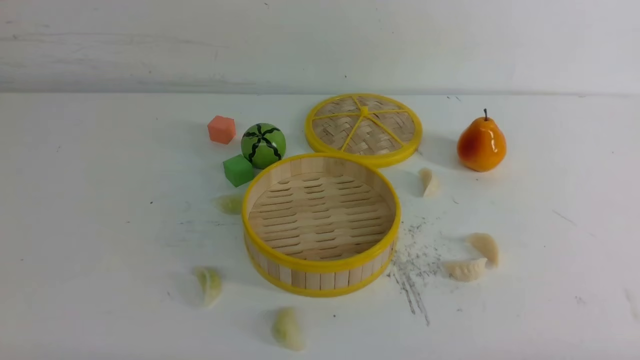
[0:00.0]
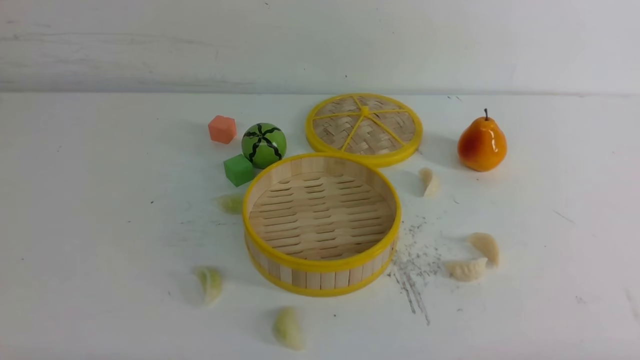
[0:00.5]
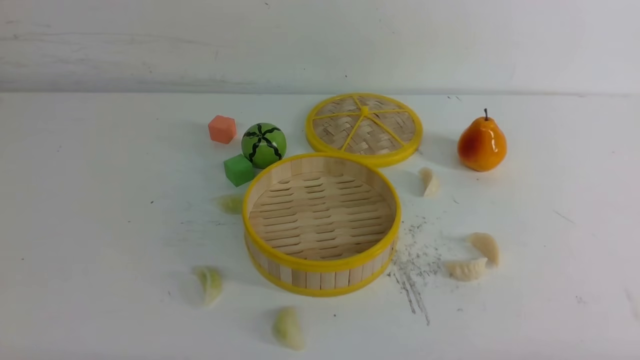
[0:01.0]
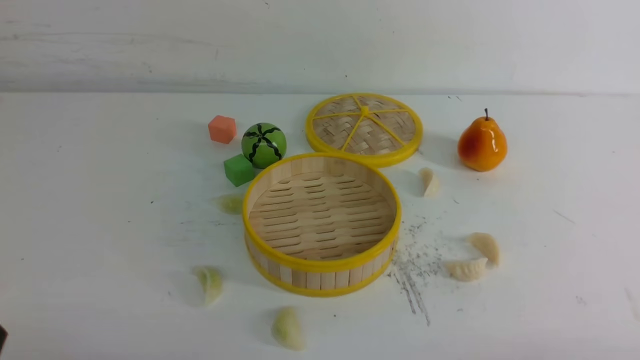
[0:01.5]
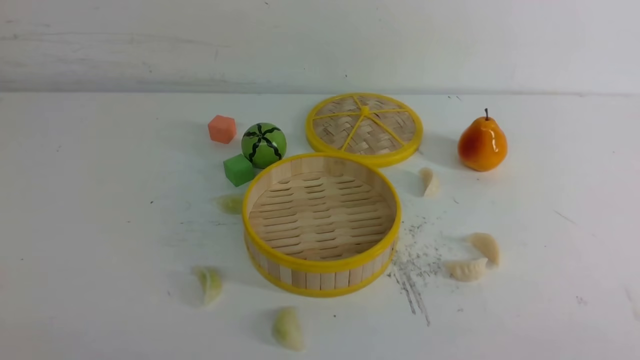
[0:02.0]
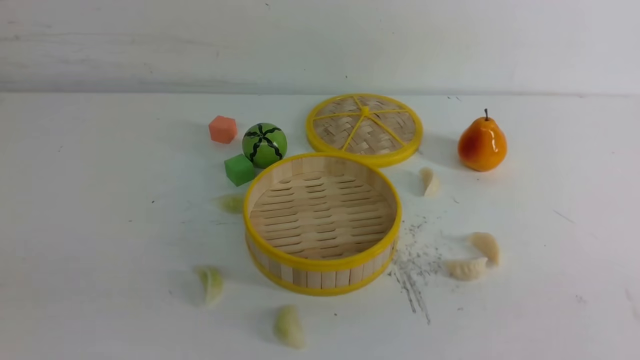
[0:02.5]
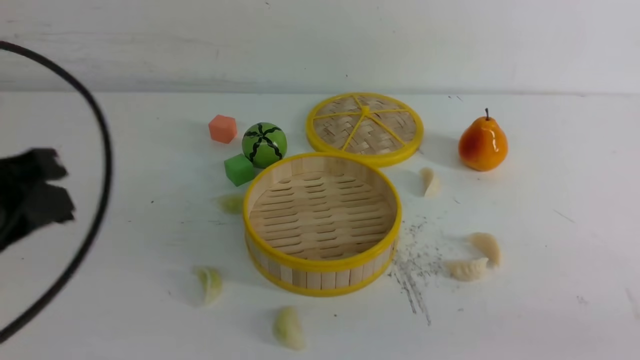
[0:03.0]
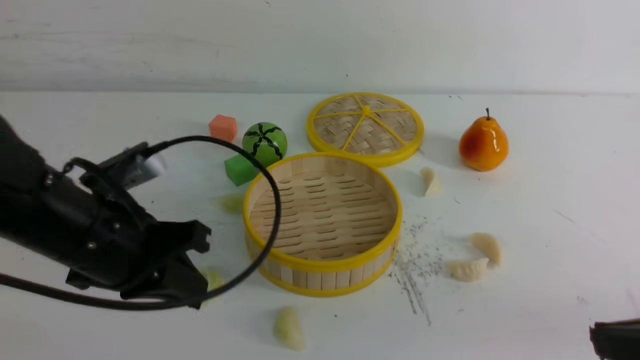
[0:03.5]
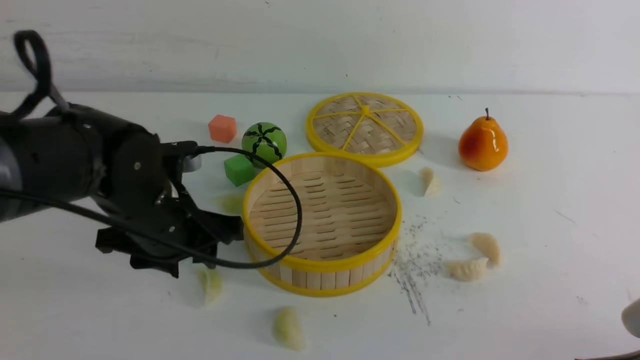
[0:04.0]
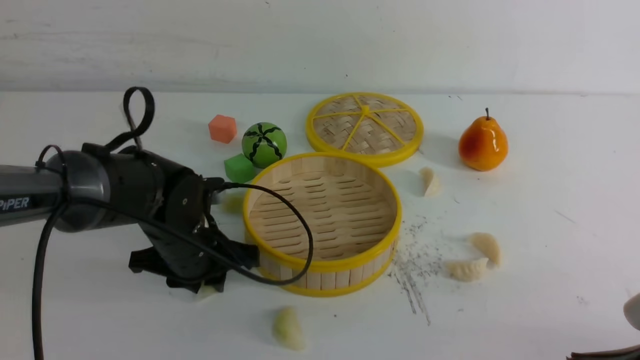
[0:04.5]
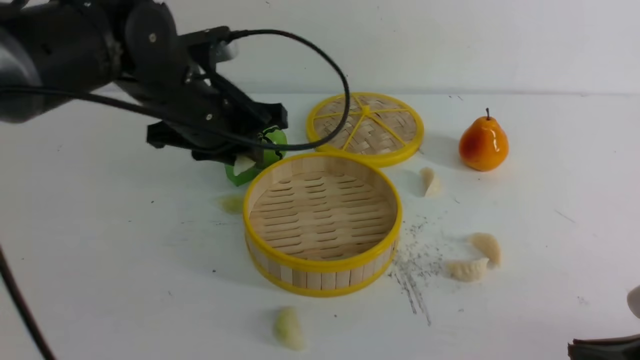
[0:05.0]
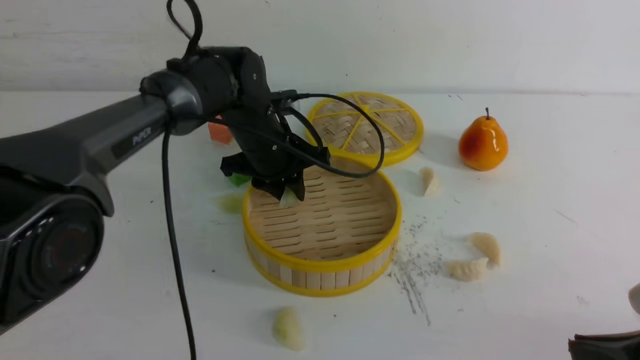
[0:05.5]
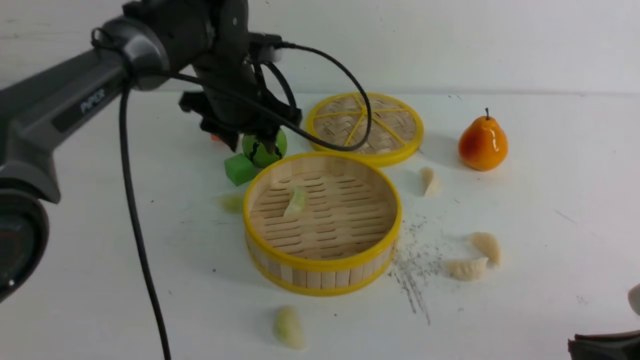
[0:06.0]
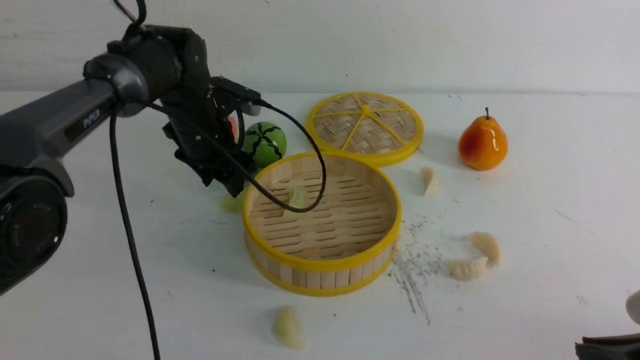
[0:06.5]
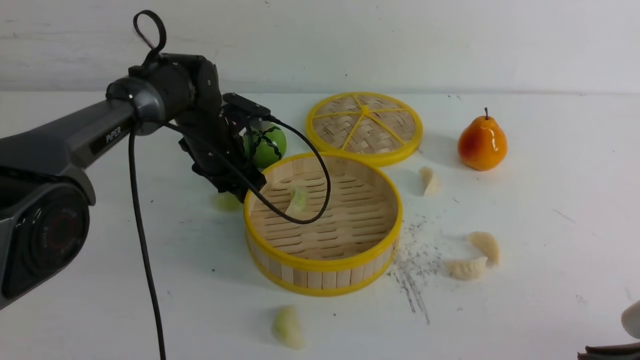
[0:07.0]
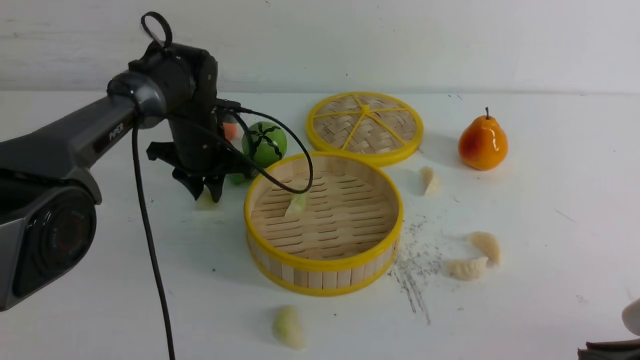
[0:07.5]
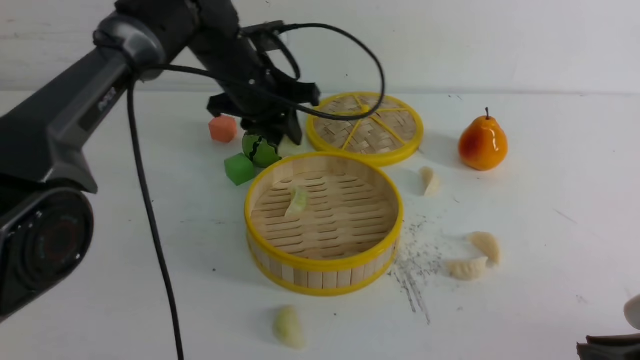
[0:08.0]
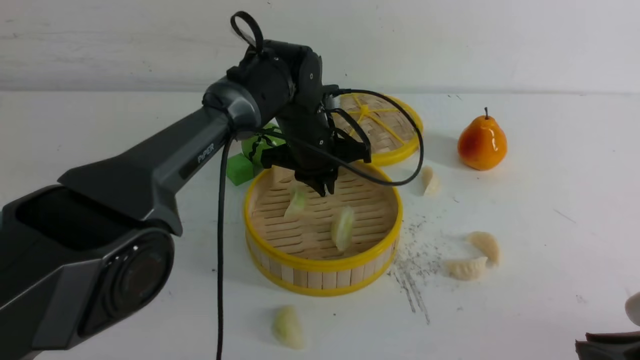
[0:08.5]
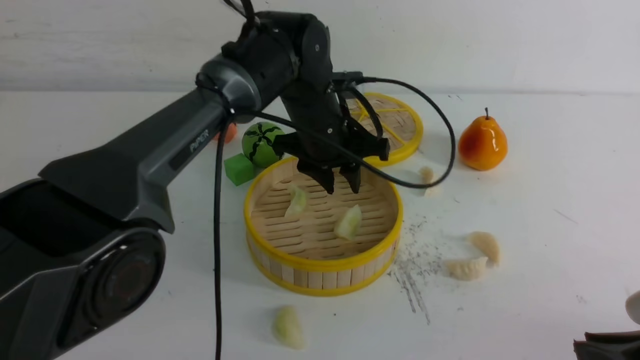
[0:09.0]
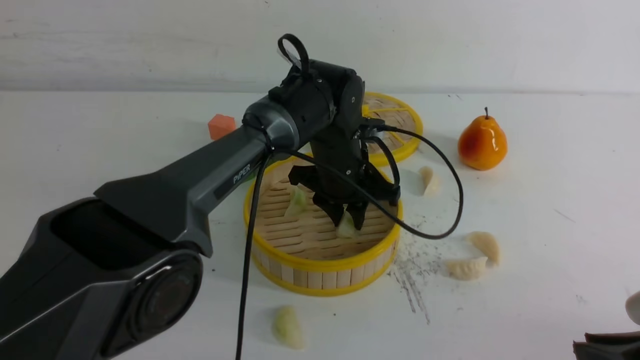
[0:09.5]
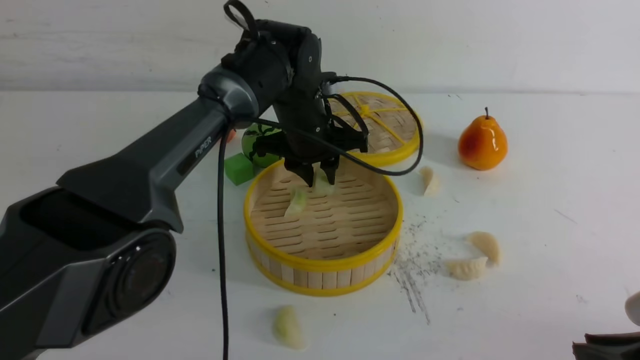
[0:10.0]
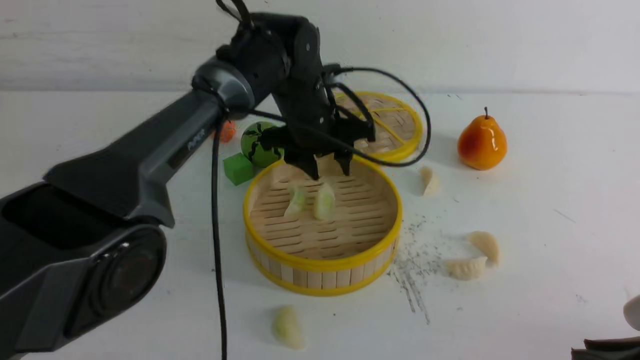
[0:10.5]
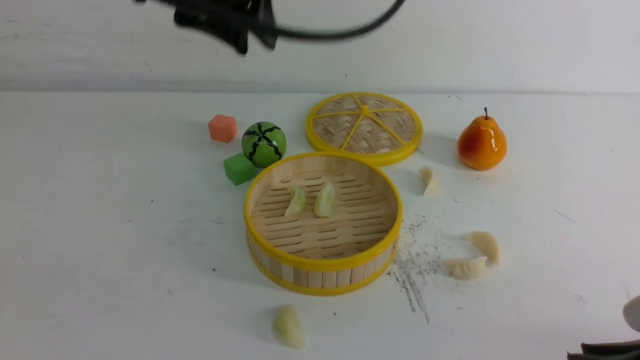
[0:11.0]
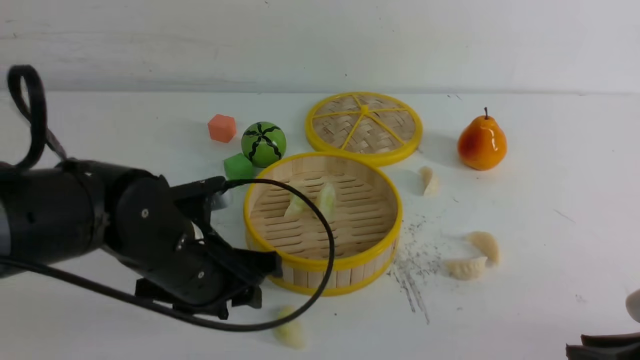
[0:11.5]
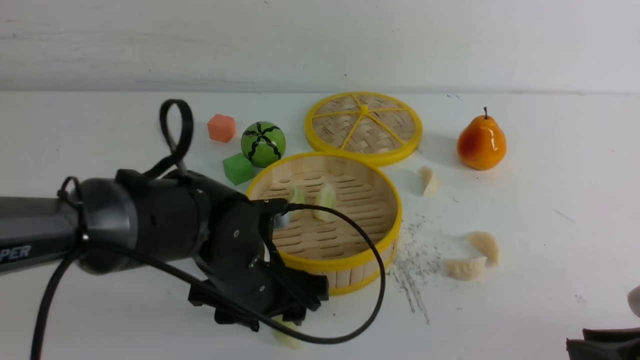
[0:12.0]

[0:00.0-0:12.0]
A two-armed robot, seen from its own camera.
Task of the whole recording: put the dumplings into the steamer on the white table.
Step, 0:00.0 to 0:04.5: use the left arm to grab a dumpling.
Step, 0:05.0 to 0:05.5: use the left arm to put the dumpling into the steamer.
Step, 0:06.0 to 0:07.0: use the left arm to grab a dumpling.
Step, 0:07.5 to 0:08.5: use the left arm to put the dumpling into the steamer.
0:02.0 to 0:04.0: The left gripper heads forward and to the right, covering approximately 30 cm, and closes and opens again; the right gripper goes some 10 cm forward, and travels upward and back again, approximately 10 cm each way.
0:04.0 to 0:06.0: The left gripper heads forward and upward, covering approximately 15 cm, and closes and opens again.
0:06.0 to 0:08.0: The left gripper reaches approximately 10 cm downward, then returns, and closes.
0:08.0 to 0:10.0: The left gripper goes approximately 5 cm to the right.
0:10.0 to 0:12.0: The left gripper shifts roughly 20 cm backward, goes upward and returns, roughly 20 cm each way, and opens its fingers.

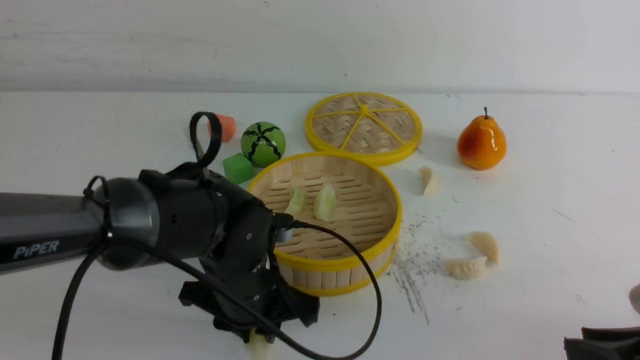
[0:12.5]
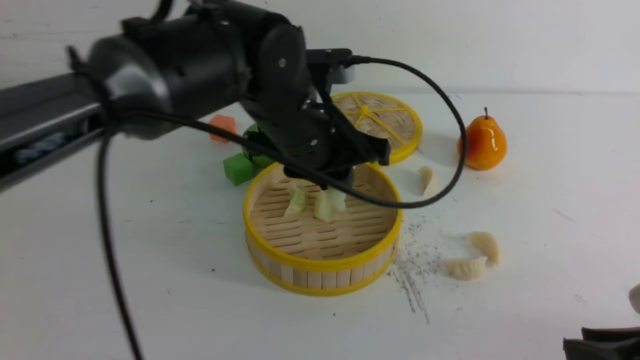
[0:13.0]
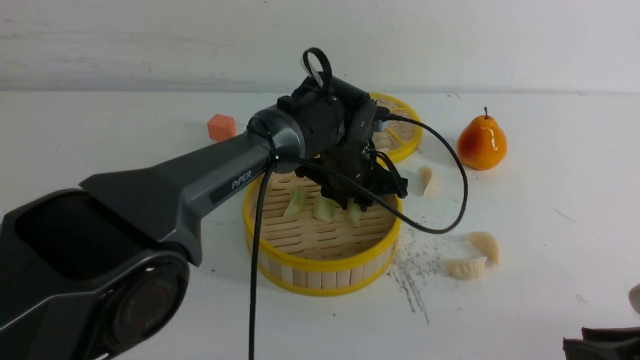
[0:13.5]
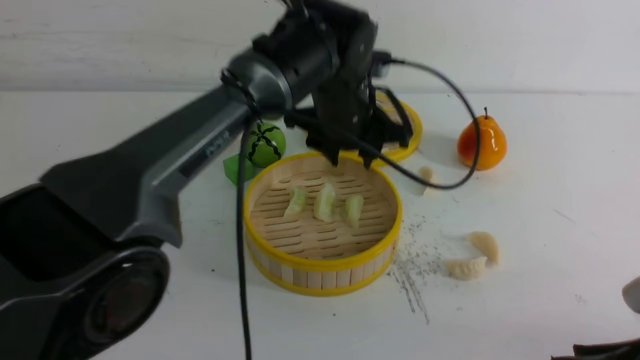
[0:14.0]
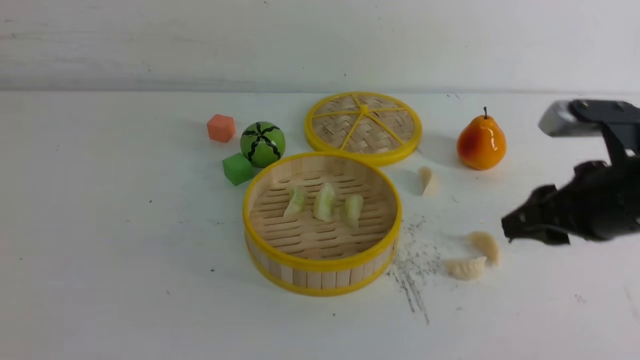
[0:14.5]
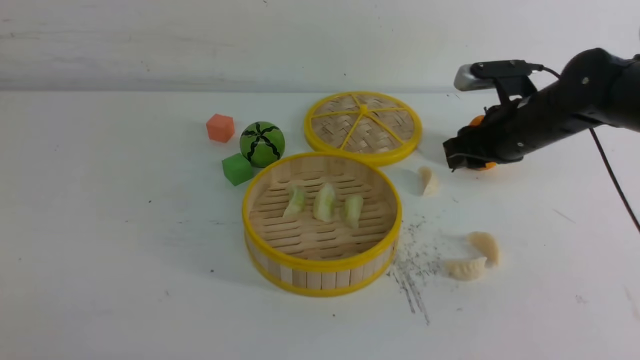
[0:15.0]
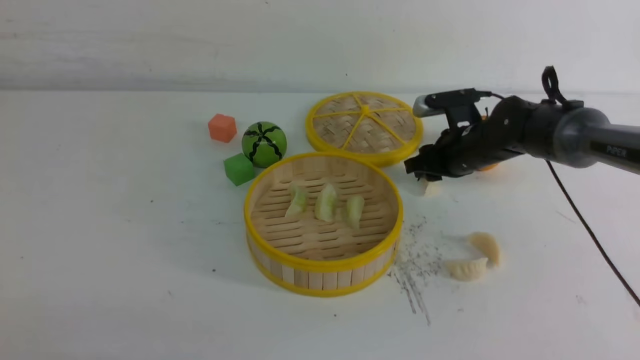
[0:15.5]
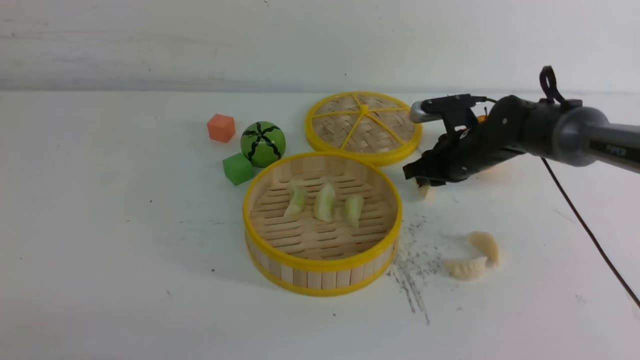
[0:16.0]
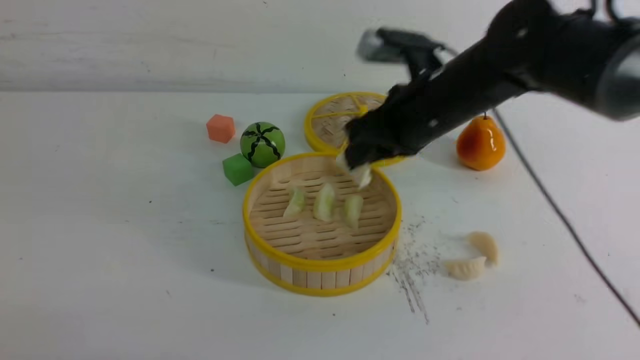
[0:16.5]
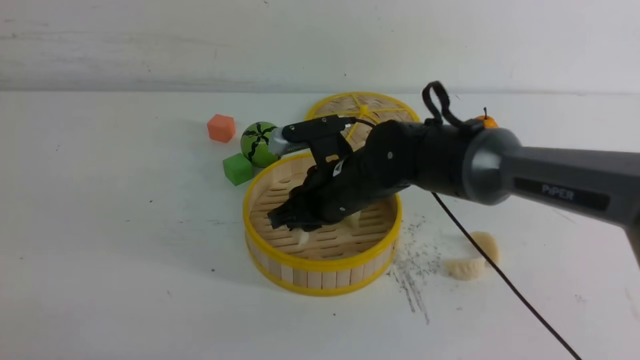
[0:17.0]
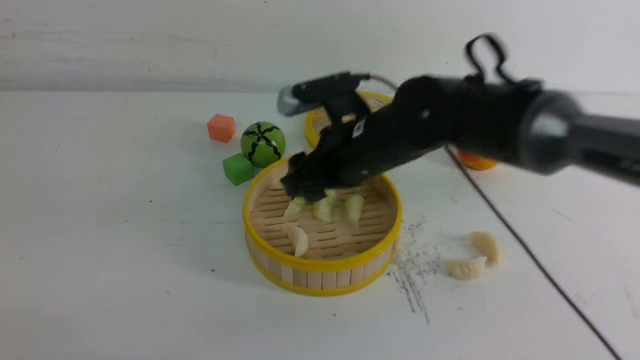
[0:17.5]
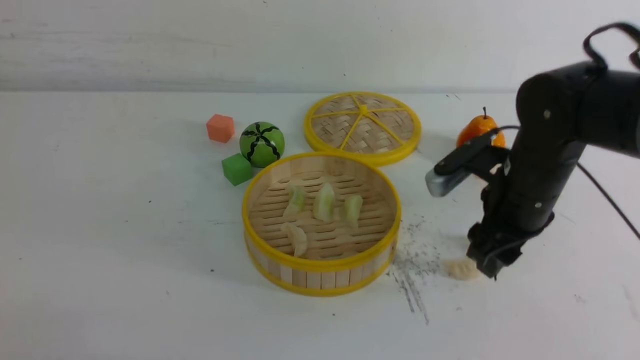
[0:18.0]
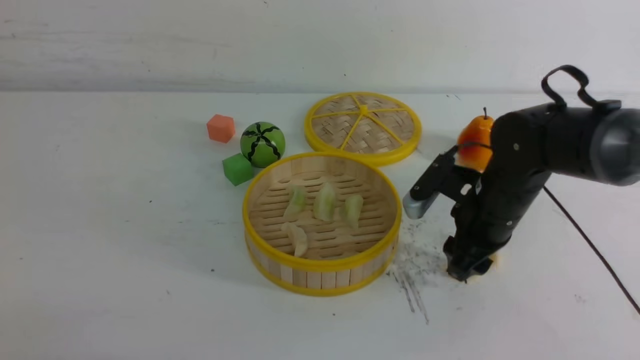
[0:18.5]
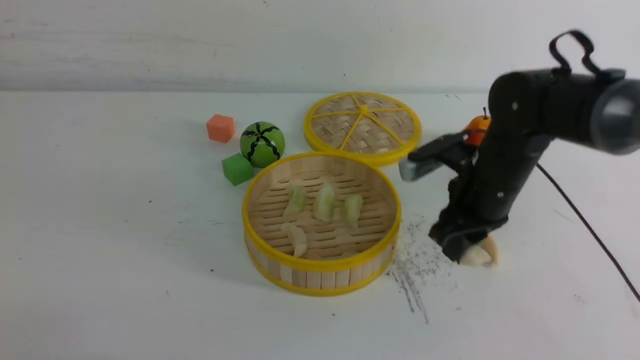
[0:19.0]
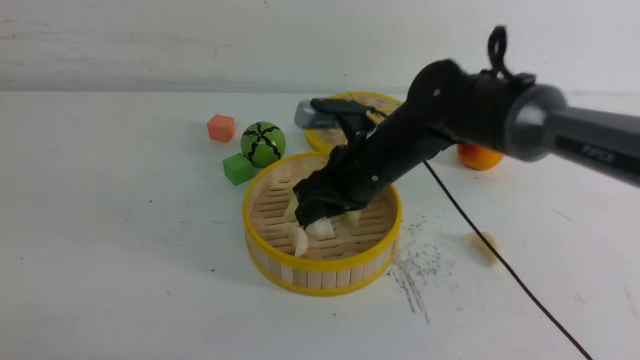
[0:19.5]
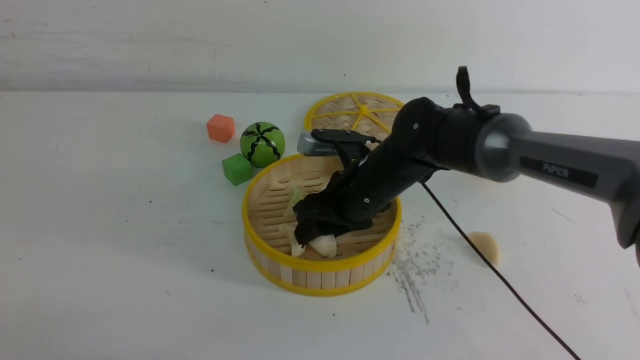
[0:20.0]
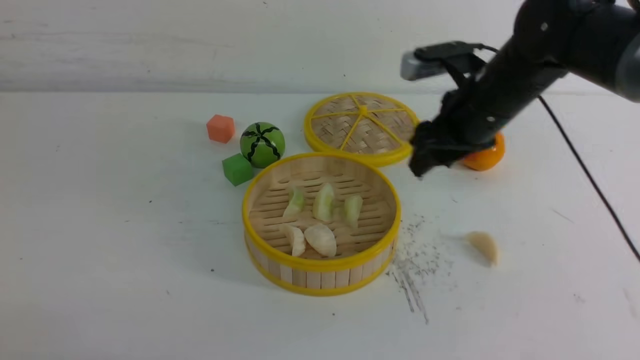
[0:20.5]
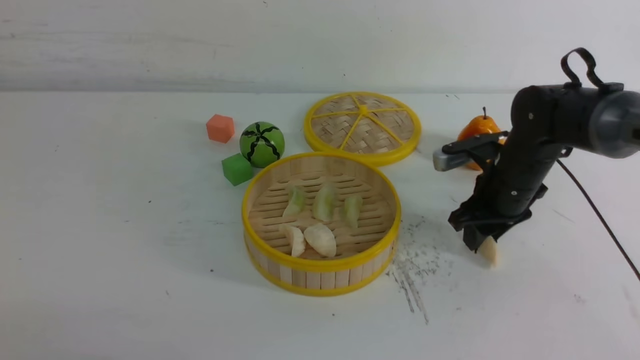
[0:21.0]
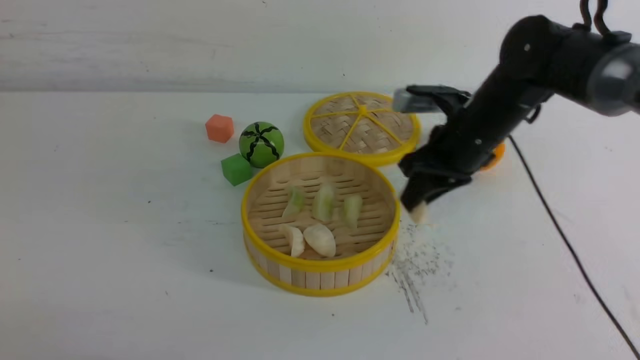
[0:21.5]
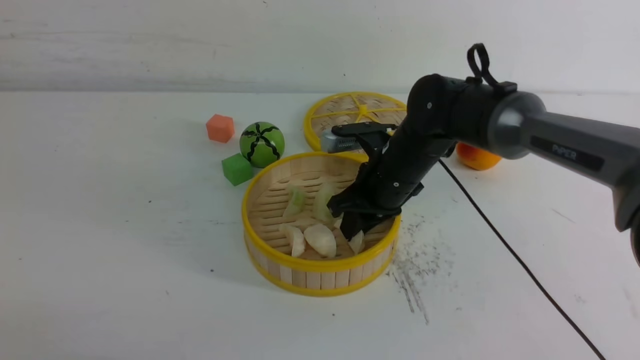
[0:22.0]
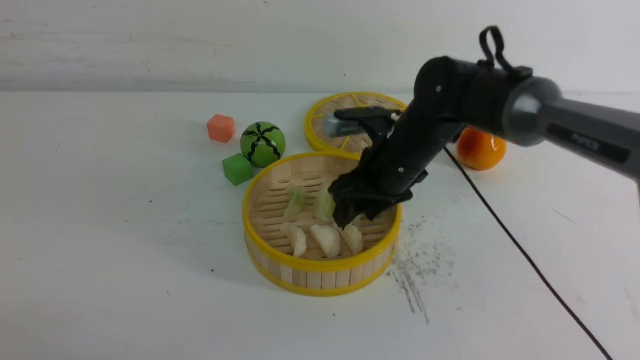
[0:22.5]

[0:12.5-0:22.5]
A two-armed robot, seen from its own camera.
Task of the whole recording: put the dumplings into the steamer on the white table.
Step, 0:12.5 to 0:13.5: use the left arm to put the dumpling into the steamer.
Step, 0:14.0 to 0:15.5: use the right arm to grab a dumpling.
Step, 0:16.0 to 0:17.0: use the right arm to put the dumpling into the steamer.
Step, 0:17.5 to 0:18.5: use the right arm to grab a dumpling.
Step, 0:19.0 to 0:20.0: use the right arm to put the dumpling into the steamer.
Step, 0:20.5 to 0:21.0: use the right arm to grab a dumpling.
Step, 0:21.5 to 0:22.0: use the right arm to put the dumpling into the steamer.
0:12.5 to 0:14.5: The right gripper heads forward, covering some 15 cm; the left gripper swings up and down, roughly 35 cm each way, with 2 reversals, and closes.
0:14.5 to 0:16.5: The right gripper is displaced to the left and forward by some 20 cm, and closes. Meanwhile the left gripper heads downward, backward and to the left, covering some 35 cm.
0:16.5 to 0:18.5: The right gripper travels to the right and downward by roughly 10 cm, and opens its fingers.
0:18.5 to 0:20.5: The right gripper travels upward and forward by some 10 cm, reaches about 10 cm to the left, then returns, and closes and opens again.
0:20.5 to 0:22.5: The right gripper shifts some 10 cm to the left, and closes, then reopens.
